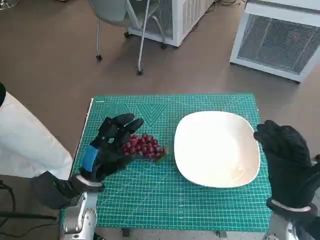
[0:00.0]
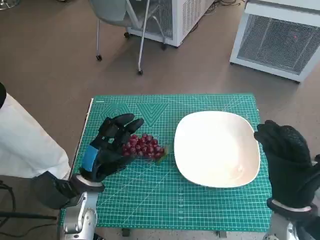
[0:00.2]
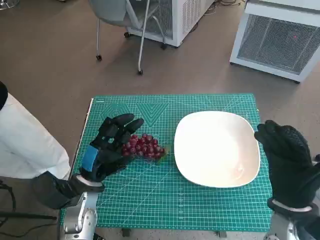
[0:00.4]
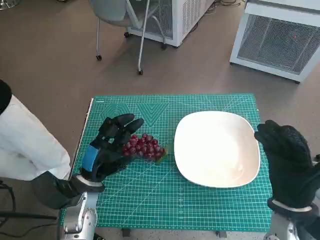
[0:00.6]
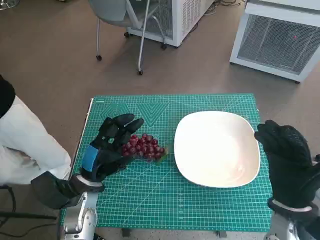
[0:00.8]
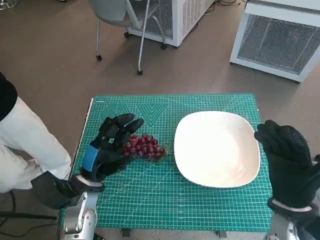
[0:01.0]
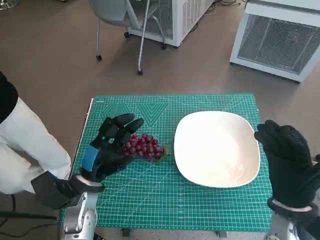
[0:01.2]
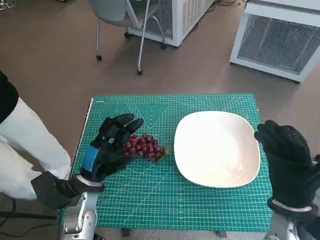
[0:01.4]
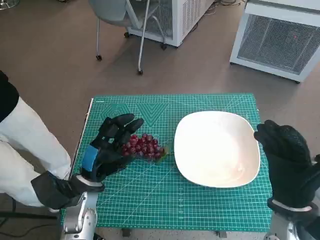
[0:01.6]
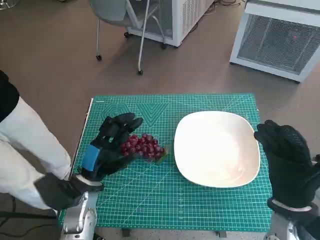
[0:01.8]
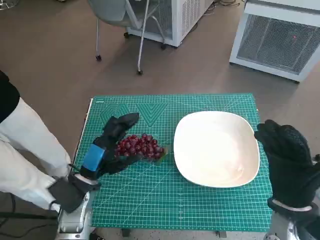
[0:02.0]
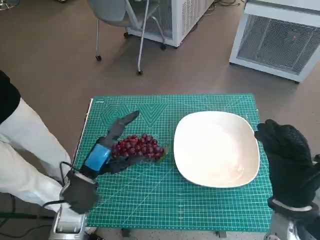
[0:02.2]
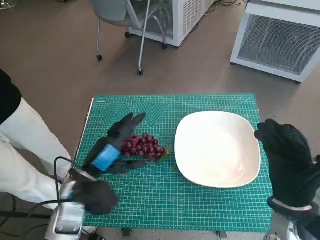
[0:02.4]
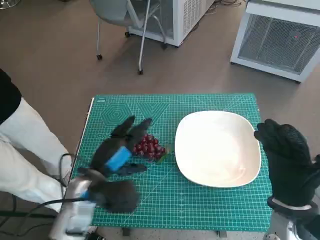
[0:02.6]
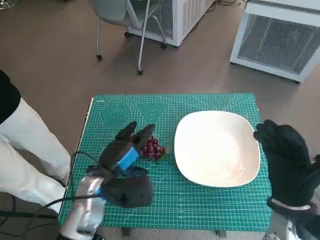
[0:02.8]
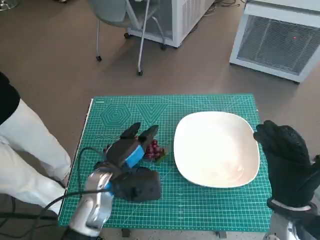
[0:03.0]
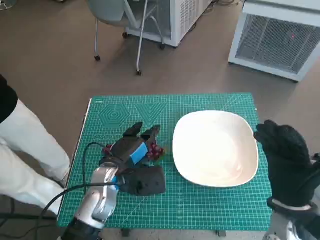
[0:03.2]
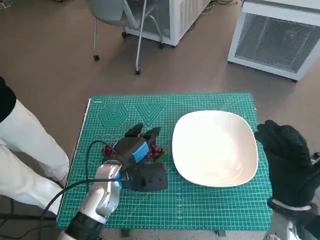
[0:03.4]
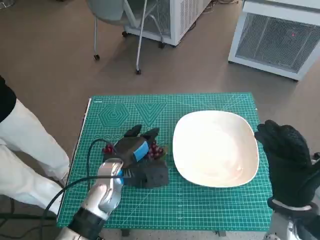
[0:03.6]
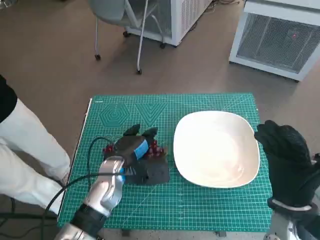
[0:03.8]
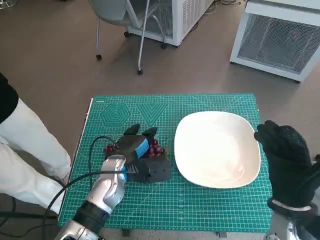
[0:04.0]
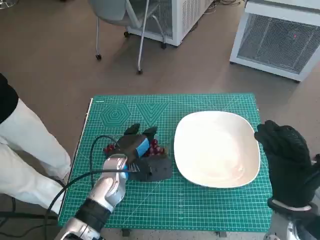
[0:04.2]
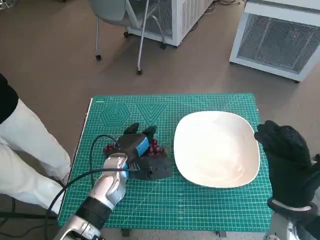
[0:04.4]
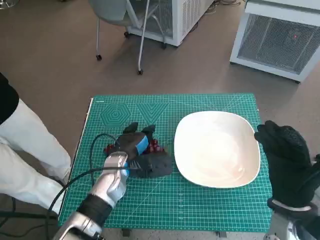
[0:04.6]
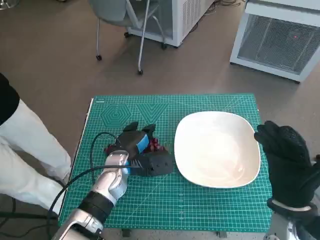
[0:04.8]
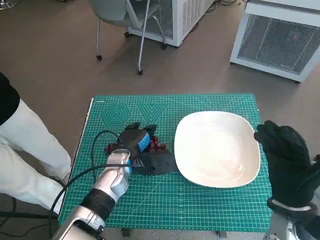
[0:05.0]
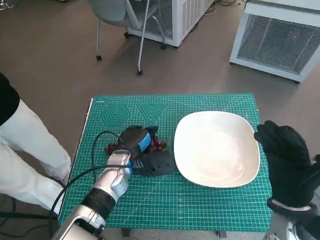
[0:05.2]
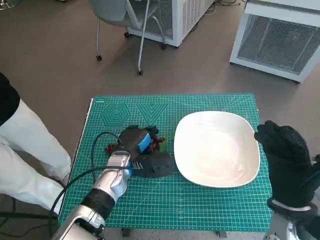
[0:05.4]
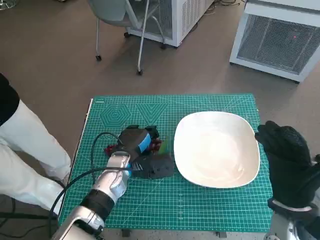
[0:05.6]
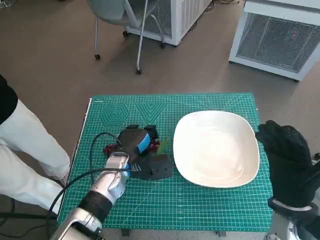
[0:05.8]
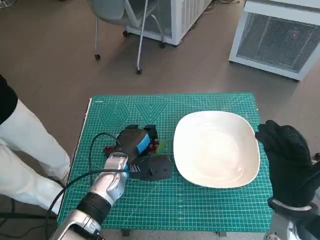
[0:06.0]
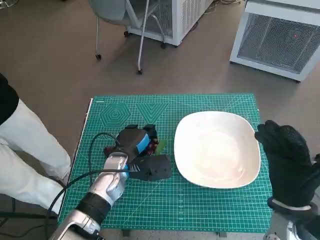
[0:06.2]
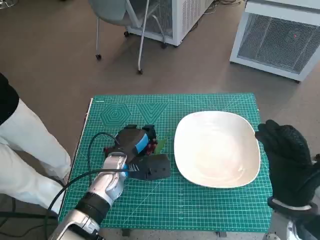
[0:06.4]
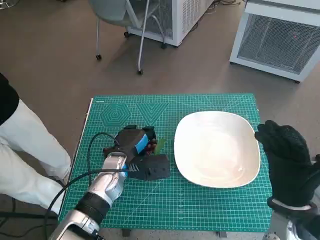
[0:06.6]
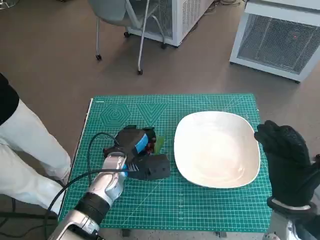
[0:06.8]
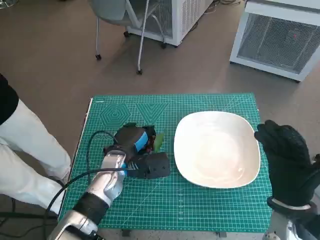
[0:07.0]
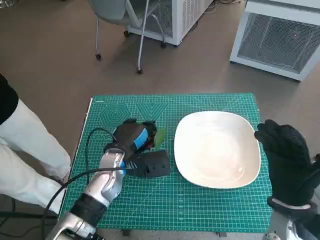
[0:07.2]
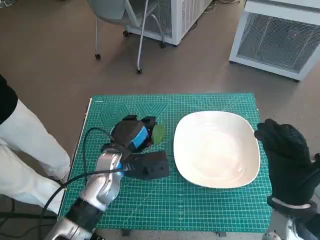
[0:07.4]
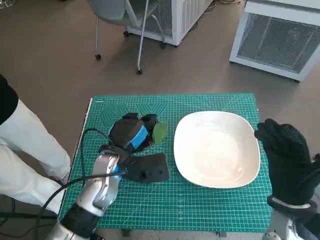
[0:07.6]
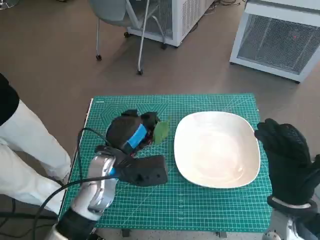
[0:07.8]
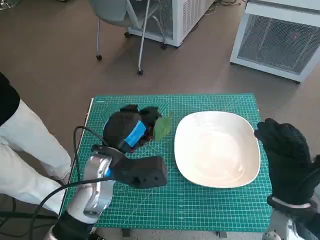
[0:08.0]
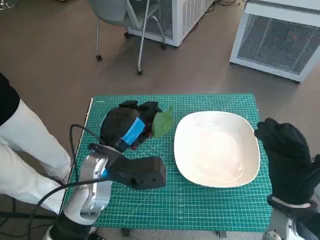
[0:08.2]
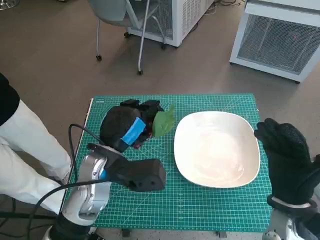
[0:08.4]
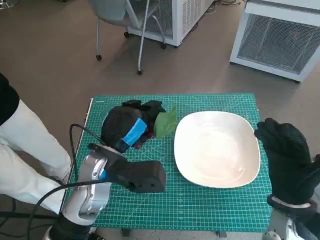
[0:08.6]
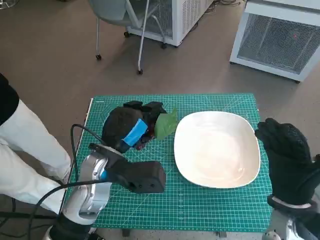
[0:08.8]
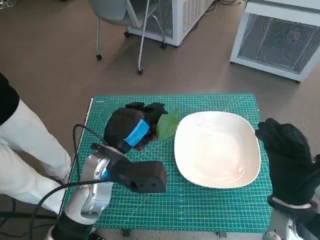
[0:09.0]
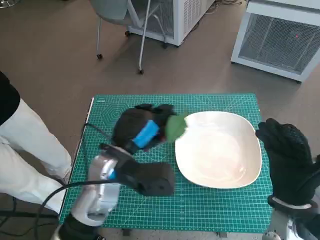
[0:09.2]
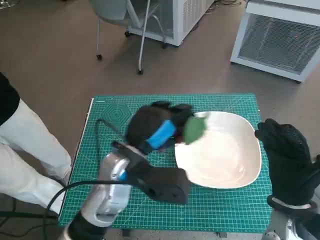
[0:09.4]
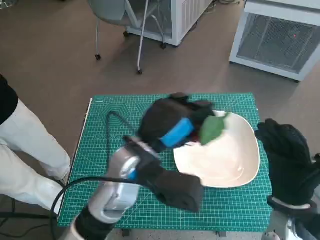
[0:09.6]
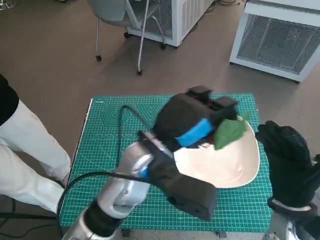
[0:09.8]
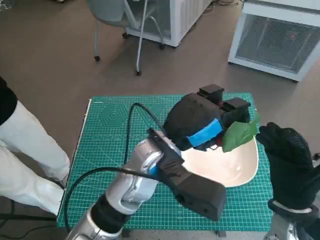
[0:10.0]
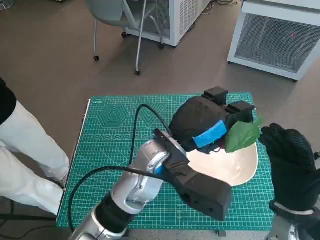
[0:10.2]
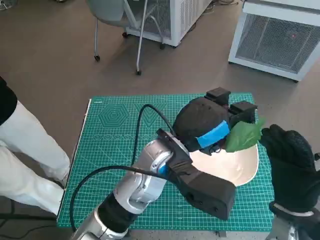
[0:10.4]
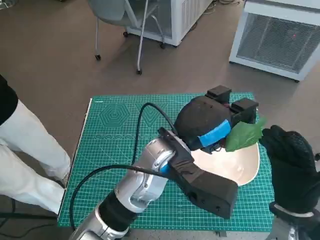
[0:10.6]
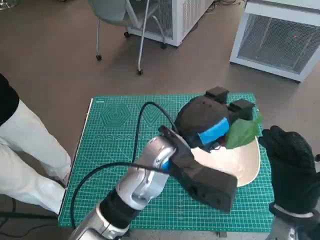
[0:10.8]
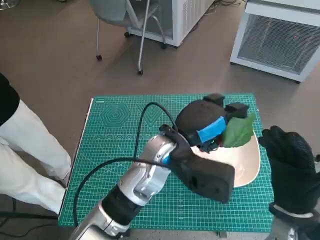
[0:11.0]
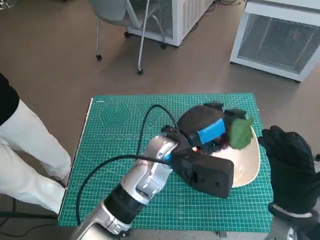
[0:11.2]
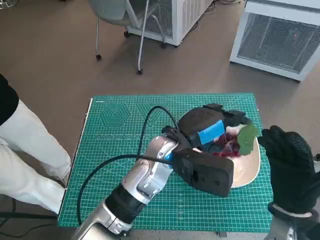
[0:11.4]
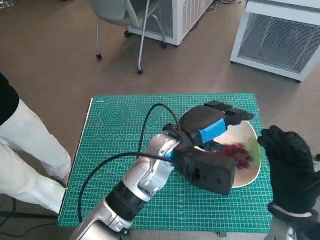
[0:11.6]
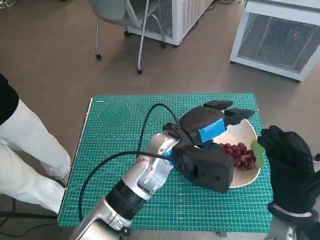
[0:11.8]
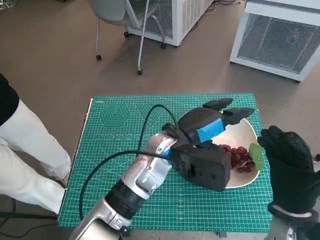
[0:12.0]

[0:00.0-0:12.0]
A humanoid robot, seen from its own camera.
Task of the whole recording: Pick up the grapes and put them on the plate.
Step, 0:00.0 to 0:06.6: Grasp the grapes with left hand.
Step, 0:06.8 to 0:11.8: Place the grapes in the plate with left hand.
0:01.6 to 0:03.0: The left hand shifts about 5 cm to the right.
0:03.0 to 0:04.4: The left hand shifts by approximately 5 cm.
0:04.4 to 0:06.0: The hands stay close to where they were, moving slightly.
0:06.0 to 0:07.6: The left hand changes place by about 5 cm.
0:07.6 to 0:09.0: The left hand ends up roughly 5 cm from where it was.
0:09.0 to 0:10.4: The left hand is displaced to the right by some 10 cm.

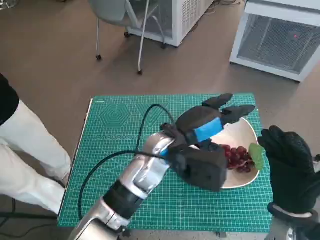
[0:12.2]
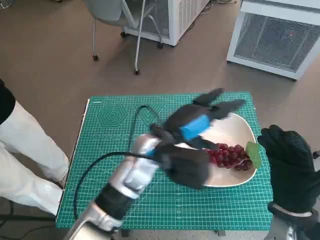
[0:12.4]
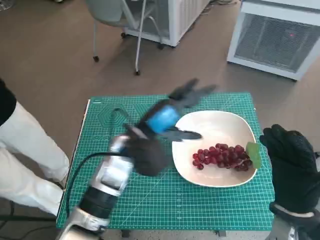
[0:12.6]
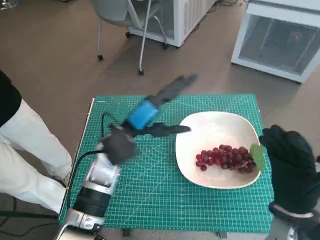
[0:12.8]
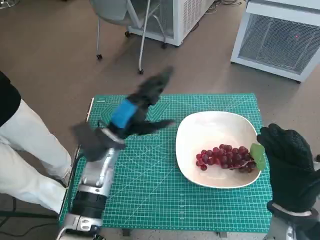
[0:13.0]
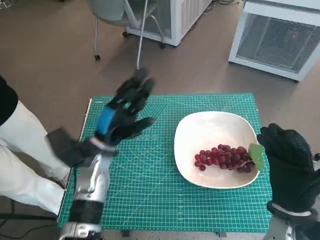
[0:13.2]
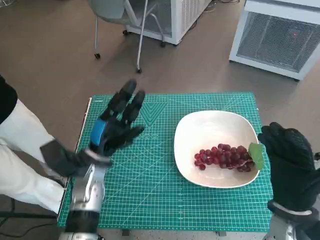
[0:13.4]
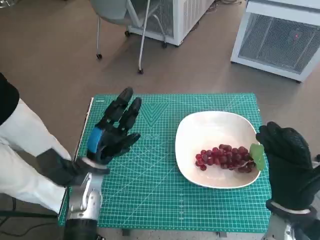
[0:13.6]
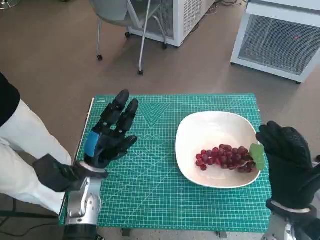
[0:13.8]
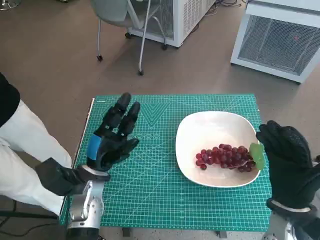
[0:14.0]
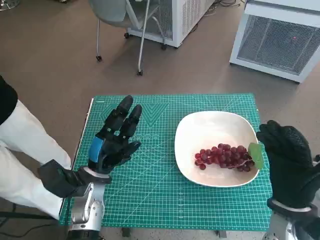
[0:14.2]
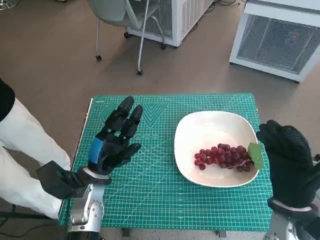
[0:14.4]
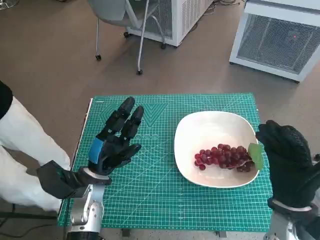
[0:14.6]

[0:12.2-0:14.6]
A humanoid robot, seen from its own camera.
Task of the whole recording: Pick up the grapes and put them on the plate.
0:12.2 to 0:13.4: The left hand shifts some 15 cm to the left and downward.
0:13.4 to 0:14.6: The hands make only small movements.

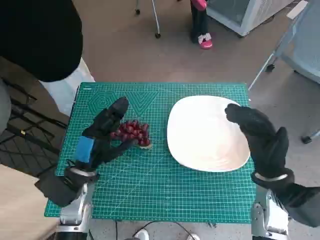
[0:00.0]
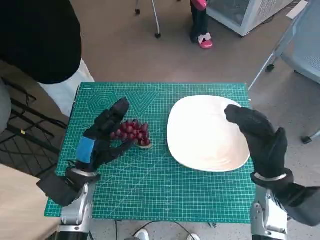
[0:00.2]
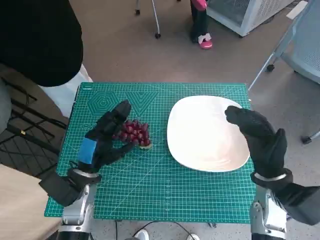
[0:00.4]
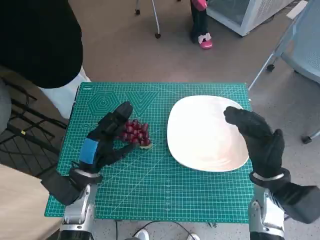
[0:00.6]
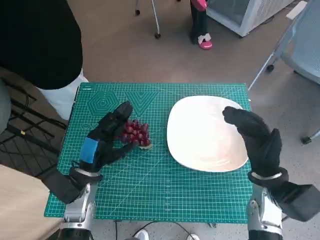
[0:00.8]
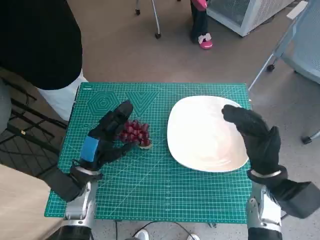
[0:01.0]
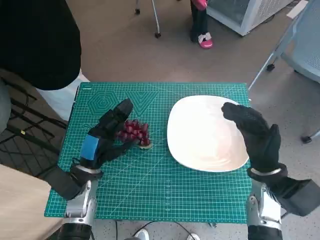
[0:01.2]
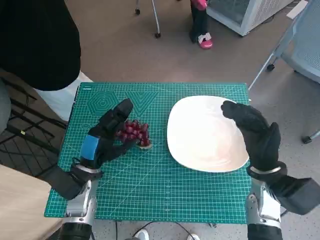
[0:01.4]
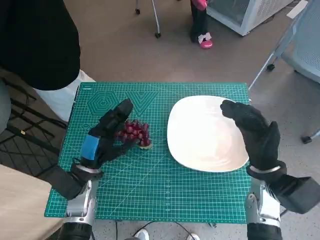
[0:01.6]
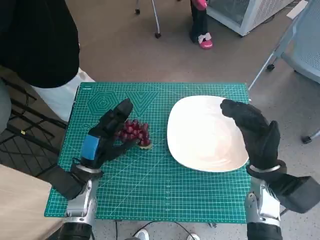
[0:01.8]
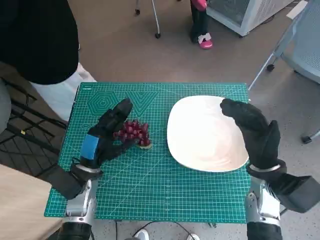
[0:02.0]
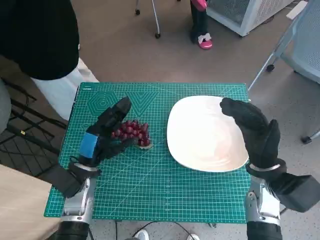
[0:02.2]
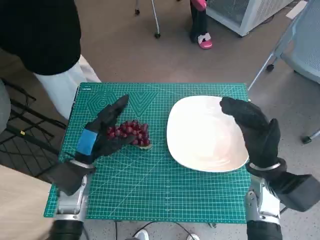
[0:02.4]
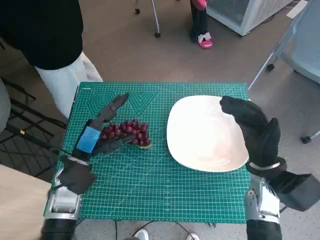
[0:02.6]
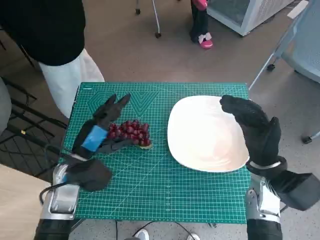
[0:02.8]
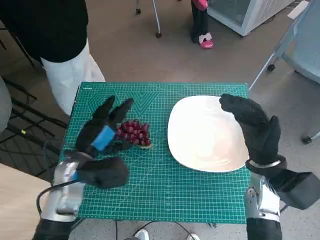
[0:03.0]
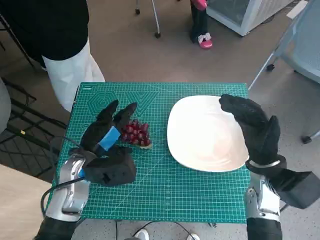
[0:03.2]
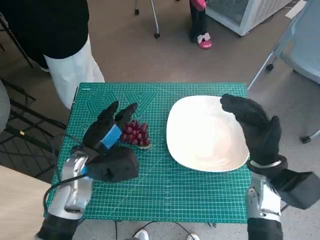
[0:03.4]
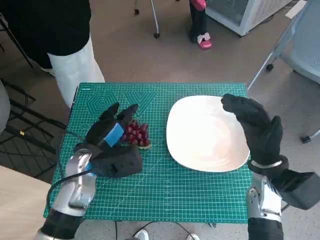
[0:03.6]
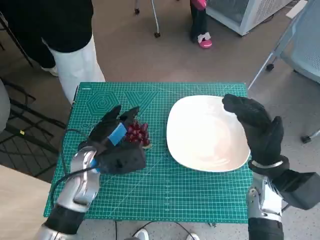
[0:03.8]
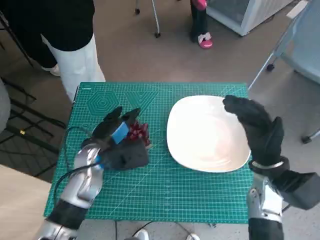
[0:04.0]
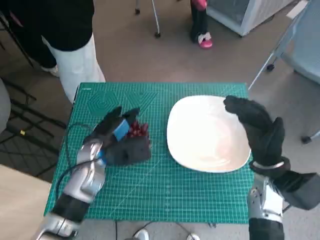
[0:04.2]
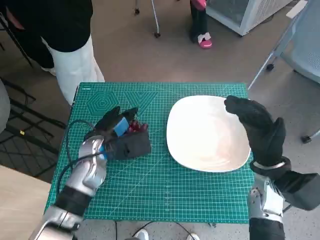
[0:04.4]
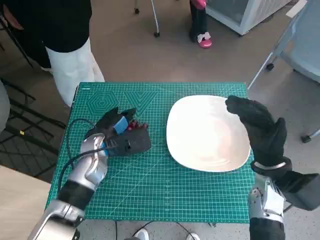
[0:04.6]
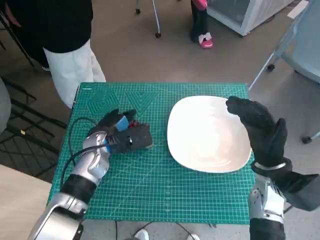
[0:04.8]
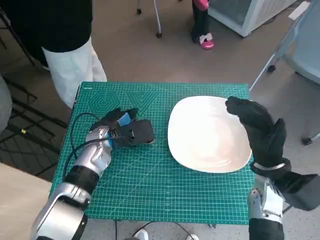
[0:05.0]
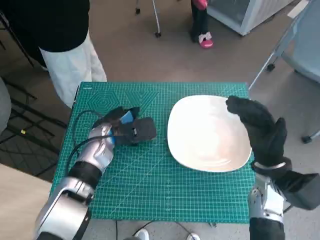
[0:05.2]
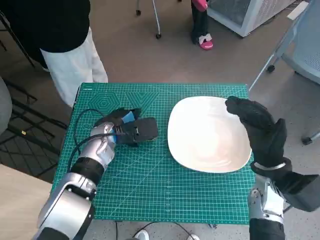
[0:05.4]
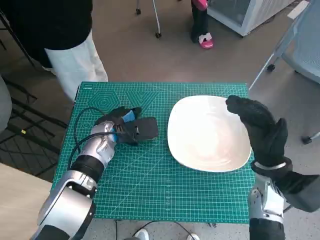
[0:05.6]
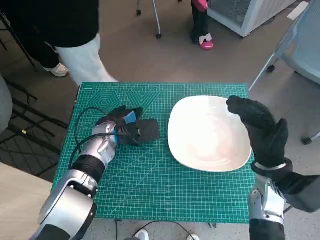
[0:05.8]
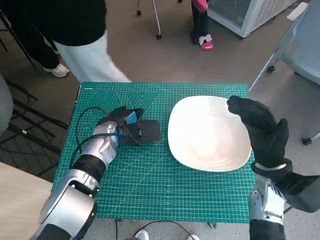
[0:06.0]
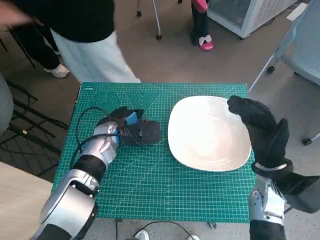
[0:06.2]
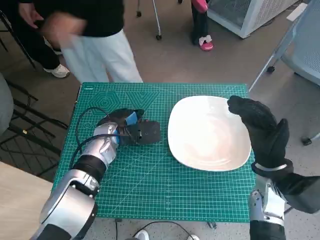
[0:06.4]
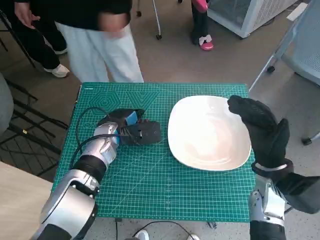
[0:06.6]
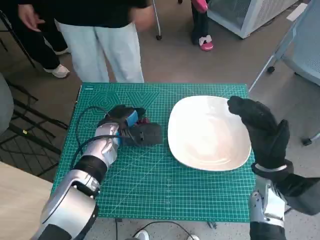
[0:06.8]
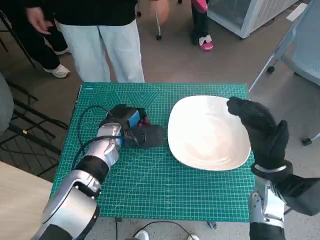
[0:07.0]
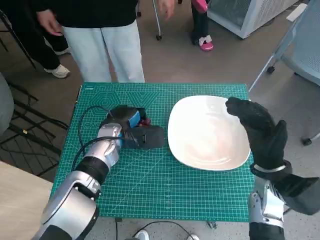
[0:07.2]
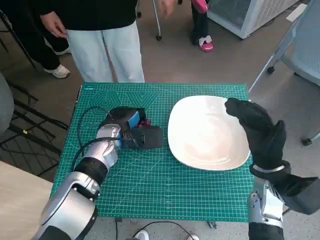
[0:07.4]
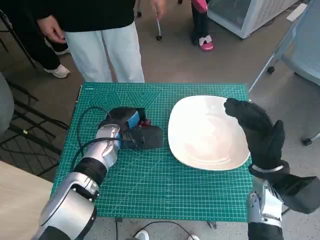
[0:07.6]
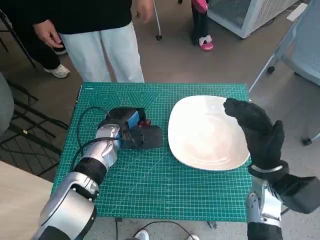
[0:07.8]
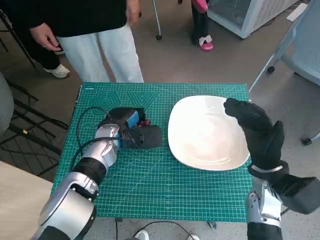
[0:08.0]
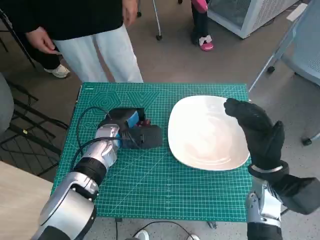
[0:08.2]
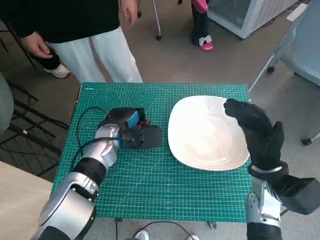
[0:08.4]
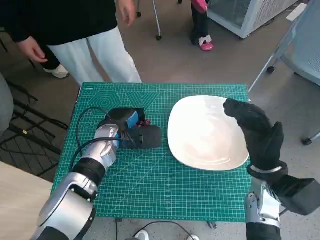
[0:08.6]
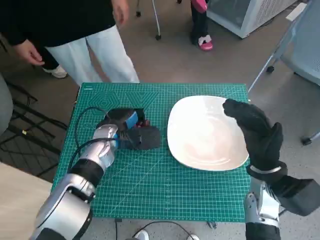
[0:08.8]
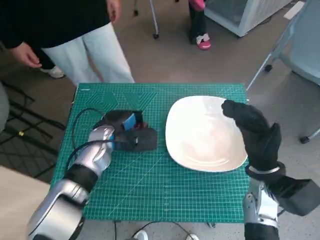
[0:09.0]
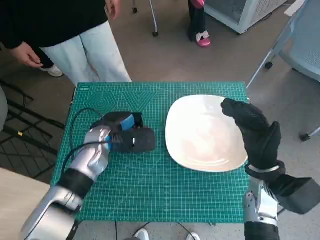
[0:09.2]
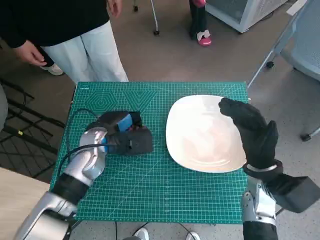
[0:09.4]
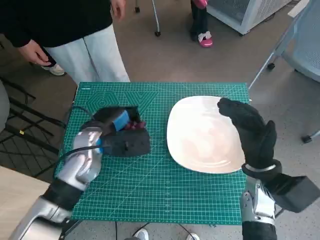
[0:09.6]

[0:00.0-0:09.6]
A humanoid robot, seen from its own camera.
Task of the whole recording: Pick up the grapes and put them on the plate.
Step, 0:00.0 to 0:07.2: Grasp the grapes with left hand.
0:01.6 to 0:03.2: The left hand shifts by about 5 cm.
0:03.2 to 0:04.8: The left hand heads forward, covering approximately 5 cm.
0:06.4 to 0:08.0: The hands stay close to where they were, moving slightly.
0:08.0 to 0:09.6: The left hand ends up about 5 cm from where it was.
